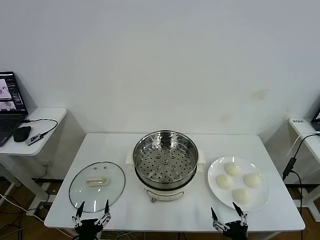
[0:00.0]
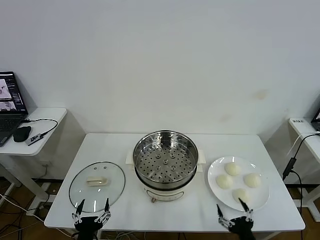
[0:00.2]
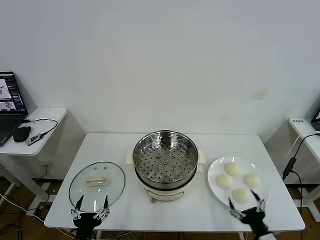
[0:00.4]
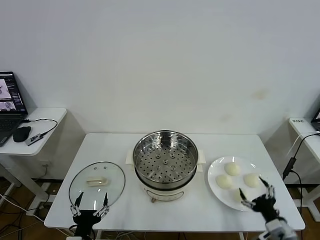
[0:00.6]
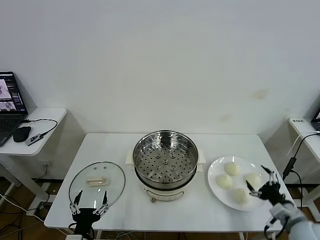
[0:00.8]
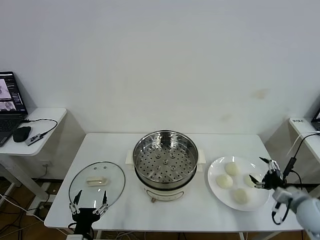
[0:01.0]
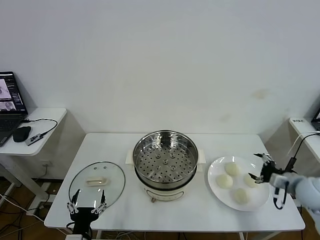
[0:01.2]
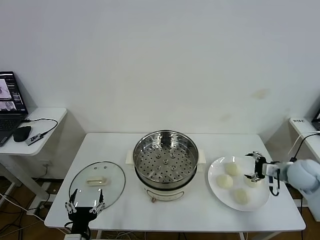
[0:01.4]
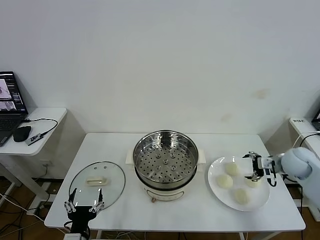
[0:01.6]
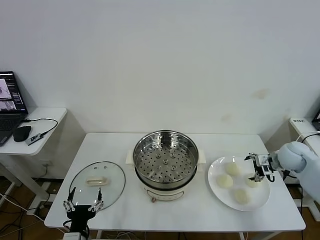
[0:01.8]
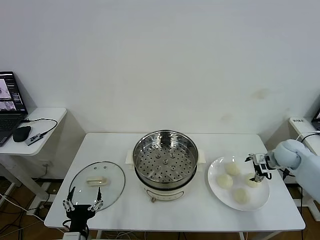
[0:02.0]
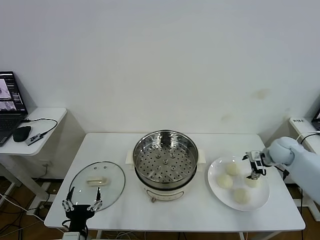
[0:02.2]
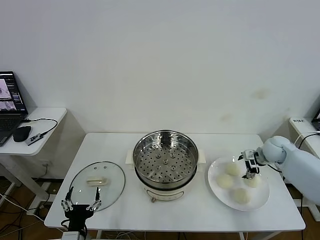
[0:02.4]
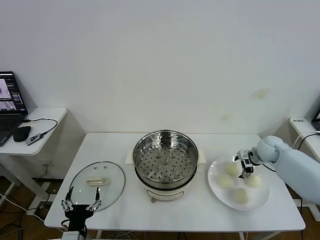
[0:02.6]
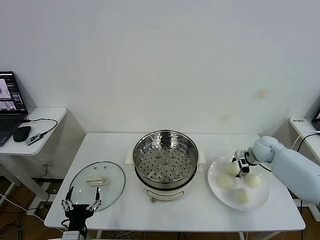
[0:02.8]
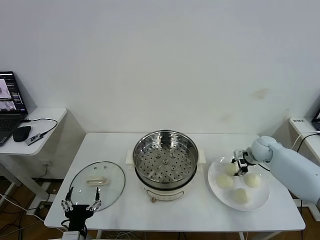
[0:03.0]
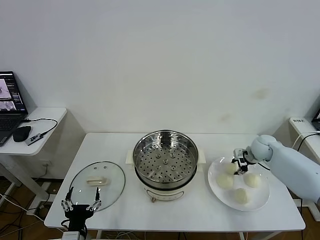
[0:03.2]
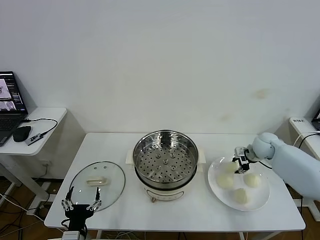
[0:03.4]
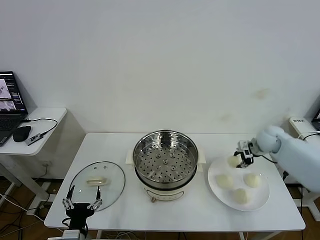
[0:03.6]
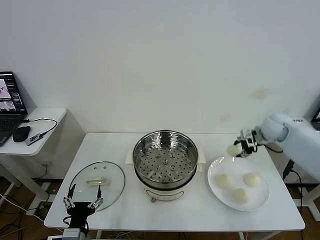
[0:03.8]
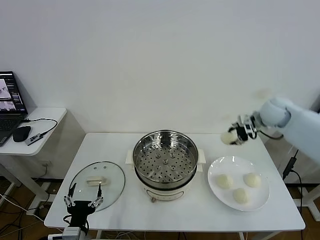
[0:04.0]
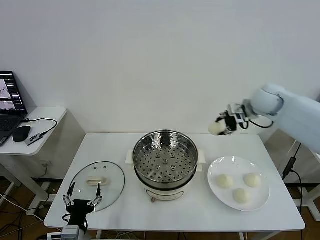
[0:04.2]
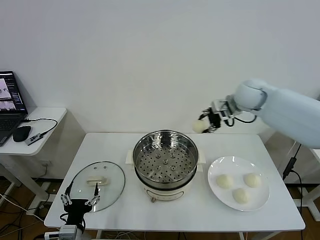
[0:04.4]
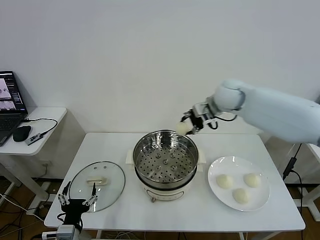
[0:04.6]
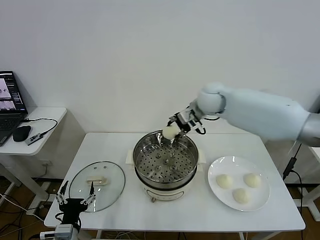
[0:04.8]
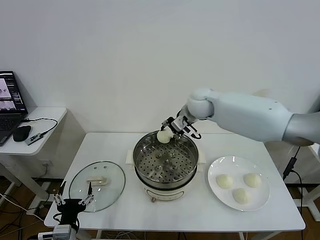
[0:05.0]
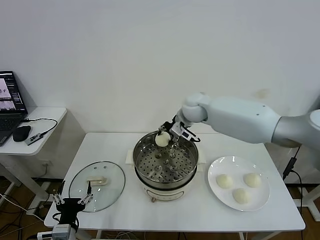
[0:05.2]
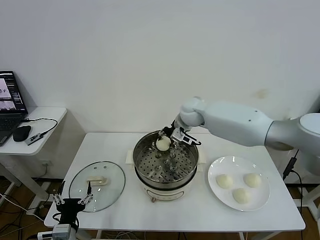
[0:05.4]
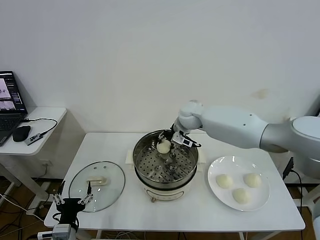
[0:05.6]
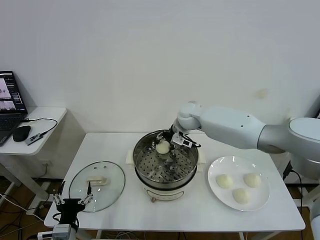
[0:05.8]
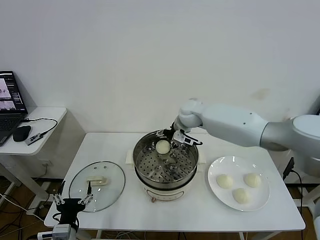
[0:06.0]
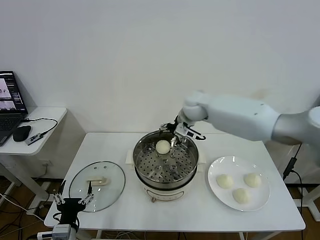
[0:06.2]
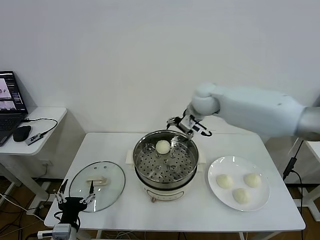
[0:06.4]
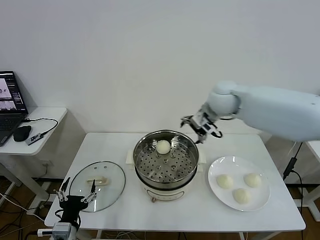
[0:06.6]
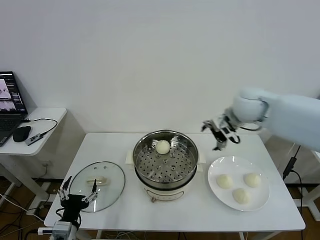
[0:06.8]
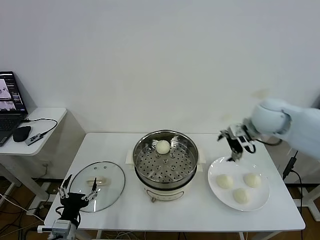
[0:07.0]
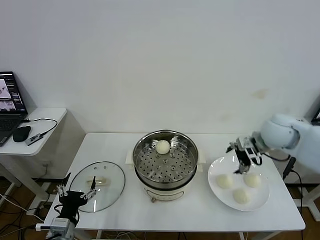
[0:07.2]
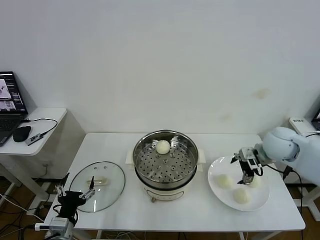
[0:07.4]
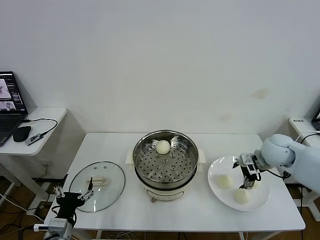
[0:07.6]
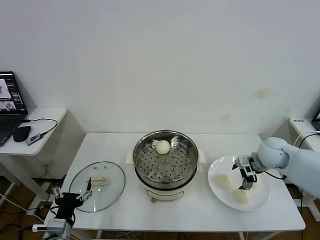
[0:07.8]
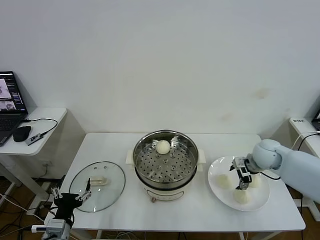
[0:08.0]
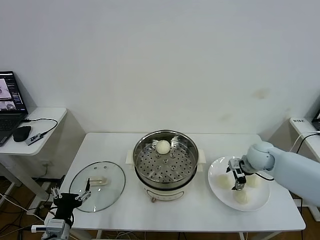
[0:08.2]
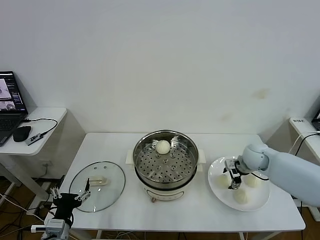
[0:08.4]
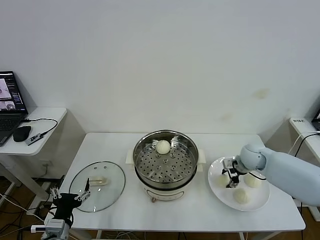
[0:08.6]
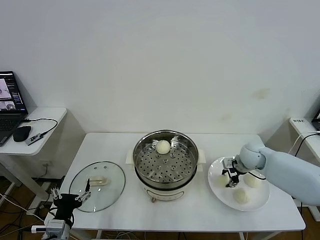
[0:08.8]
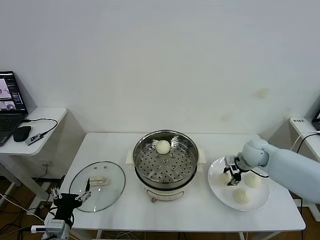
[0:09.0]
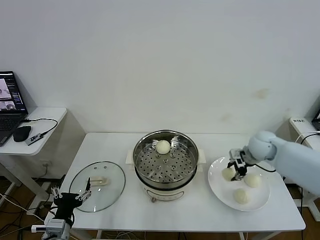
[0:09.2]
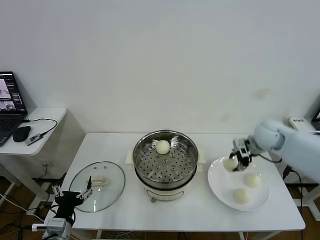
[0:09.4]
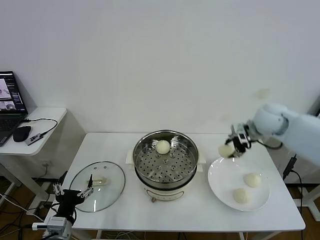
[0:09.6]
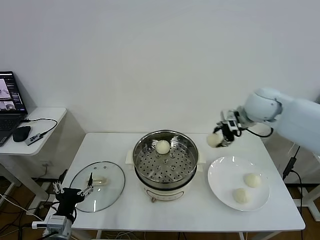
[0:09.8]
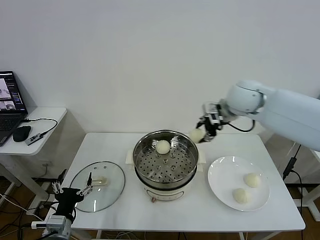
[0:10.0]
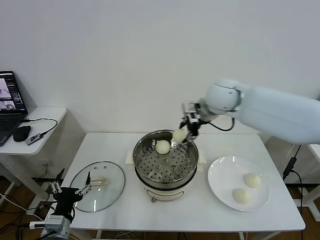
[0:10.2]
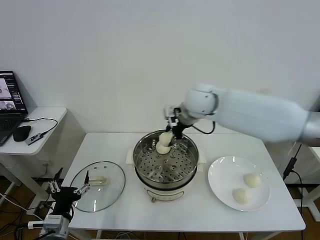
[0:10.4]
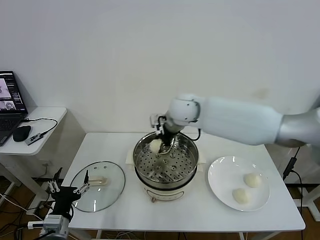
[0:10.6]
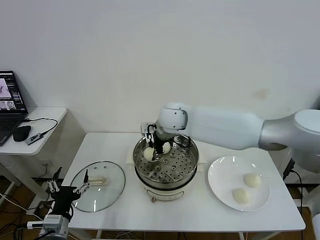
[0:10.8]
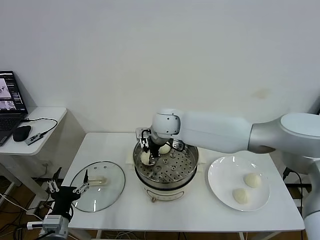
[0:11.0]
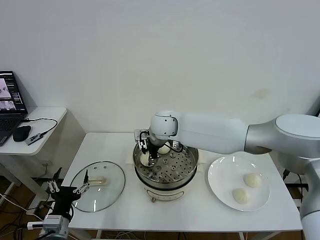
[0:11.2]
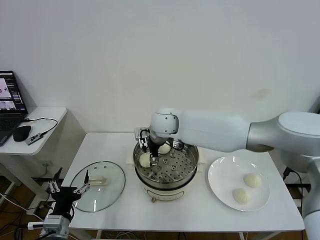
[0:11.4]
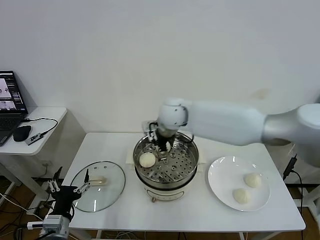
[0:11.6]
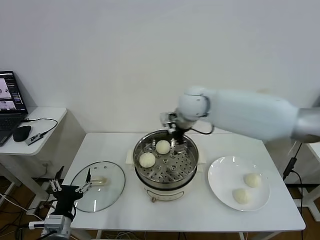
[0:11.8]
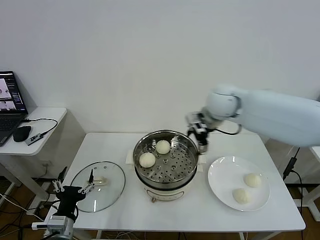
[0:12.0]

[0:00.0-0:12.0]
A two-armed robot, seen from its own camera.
Task of the whole recording: take steamed baozi put them in steamer then cover it.
Step, 0.0 to 3.0 s: Grasp the baozi in the plate with right gripper.
Step, 3.4 to 5.8 s: Place the baozi on the steamer with right gripper.
Step, 6.0 to 8.6 s: Grasp the baozi in the plate with right gripper.
Step, 9.0 to 11.2 s: Place the baozi on the steamer with right gripper.
1.6 to 3.0 s: The right gripper travels forward, downward and to the left by about 10 cm, and closes its fingers.
3.0 to 4.4 s: The right gripper goes roughly 25 cm upward and to the left.
4.4 to 6.0 s: The right gripper is displaced to the left and downward by roughly 20 cm, and opens its fingers.
6.0 to 7.6 s: The right gripper moves to the right and backward, about 30 cm.
7.6 to 9.0 s: The right gripper heads downward, covering some 5 cm, and closes its fingers.
9.0 to 10.4 s: The right gripper is displaced to the left and upward by roughly 30 cm.
10.4 to 12.0 s: The right gripper heads to the right, covering about 10 cm, and opens up.

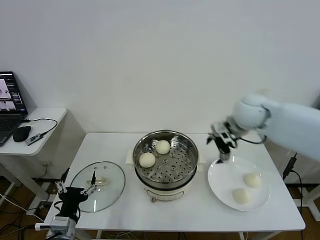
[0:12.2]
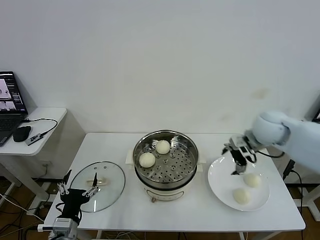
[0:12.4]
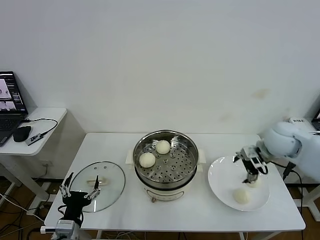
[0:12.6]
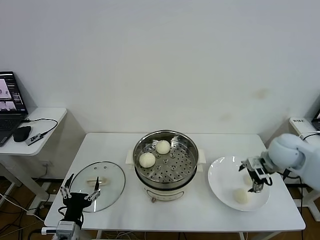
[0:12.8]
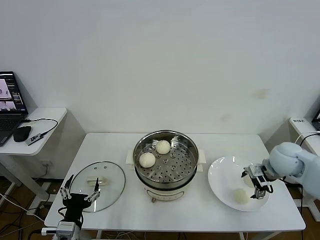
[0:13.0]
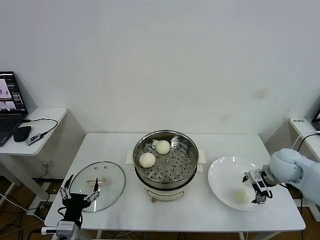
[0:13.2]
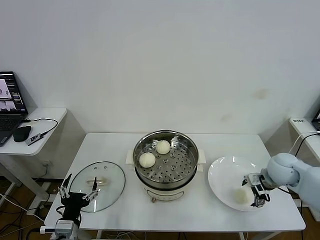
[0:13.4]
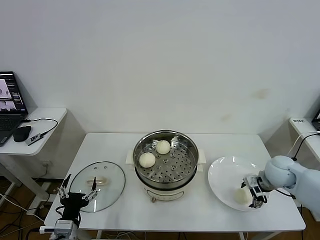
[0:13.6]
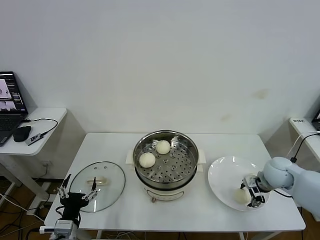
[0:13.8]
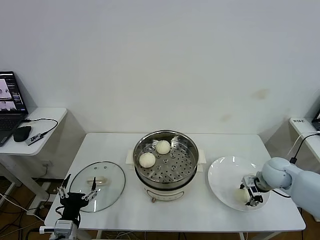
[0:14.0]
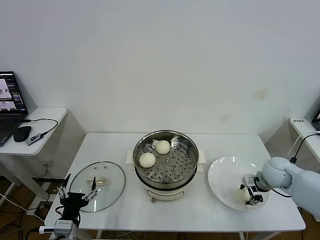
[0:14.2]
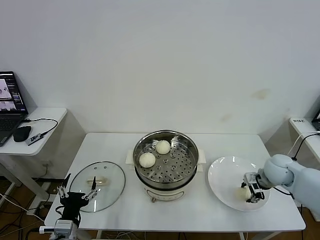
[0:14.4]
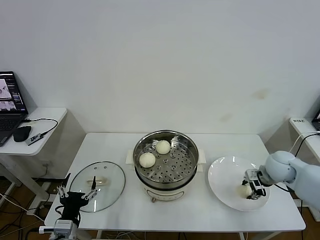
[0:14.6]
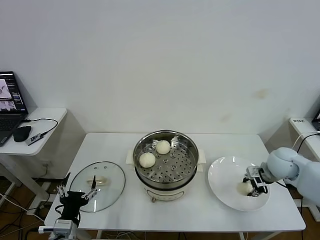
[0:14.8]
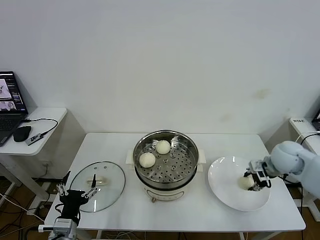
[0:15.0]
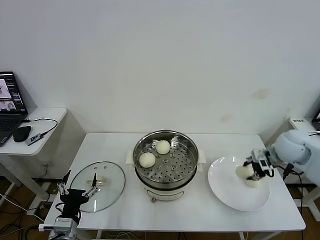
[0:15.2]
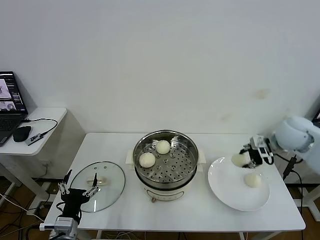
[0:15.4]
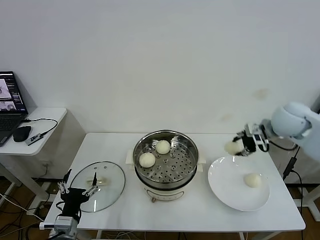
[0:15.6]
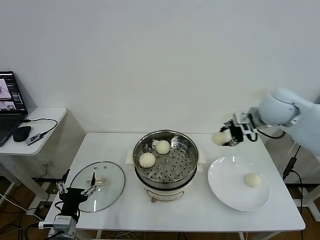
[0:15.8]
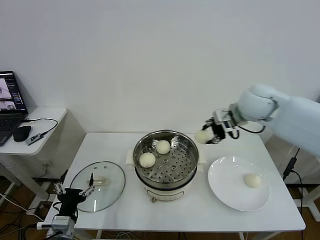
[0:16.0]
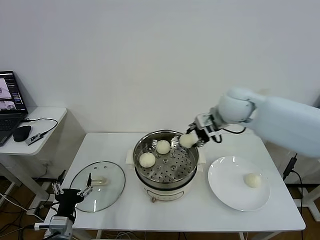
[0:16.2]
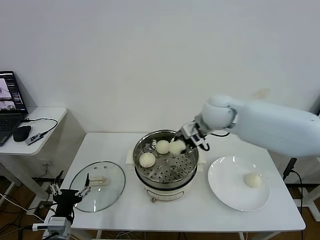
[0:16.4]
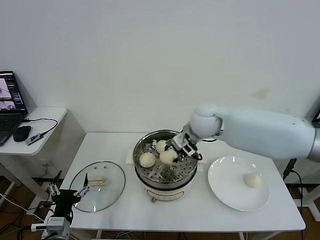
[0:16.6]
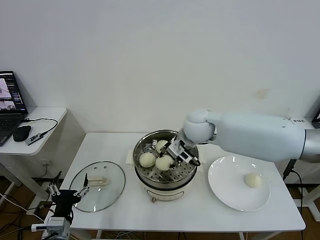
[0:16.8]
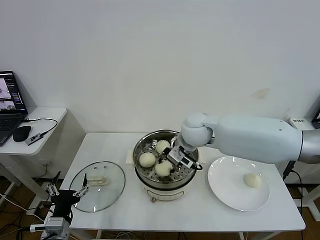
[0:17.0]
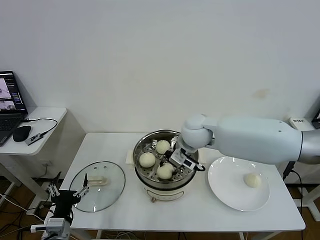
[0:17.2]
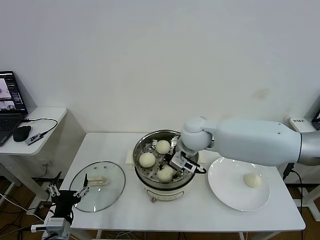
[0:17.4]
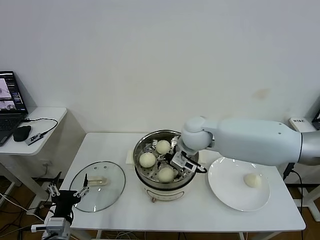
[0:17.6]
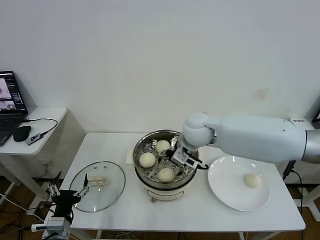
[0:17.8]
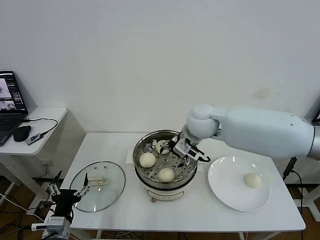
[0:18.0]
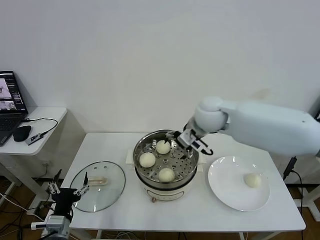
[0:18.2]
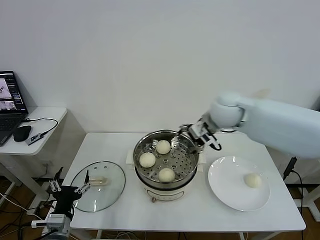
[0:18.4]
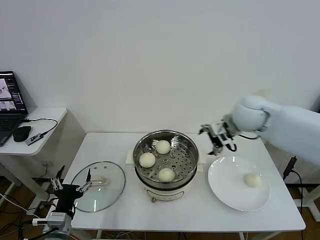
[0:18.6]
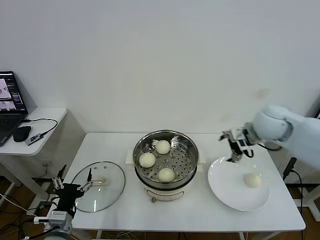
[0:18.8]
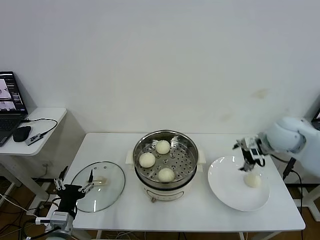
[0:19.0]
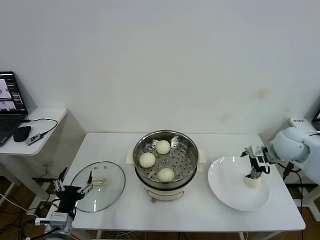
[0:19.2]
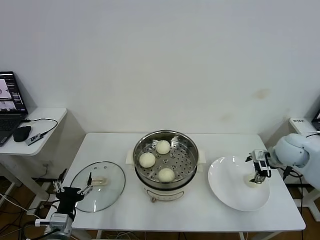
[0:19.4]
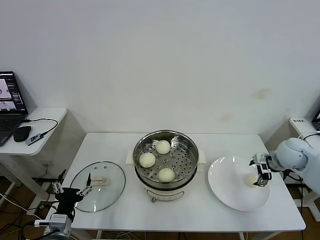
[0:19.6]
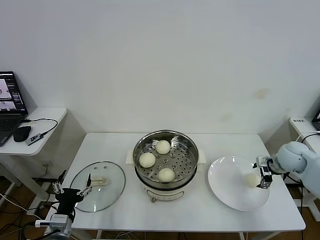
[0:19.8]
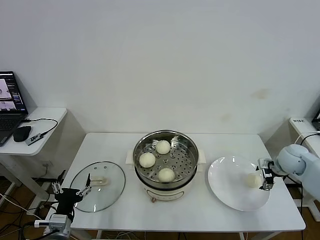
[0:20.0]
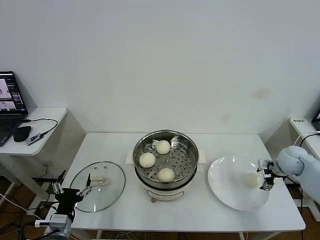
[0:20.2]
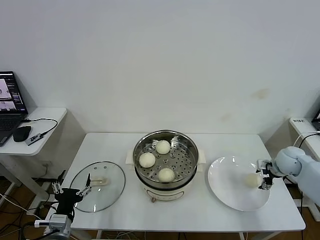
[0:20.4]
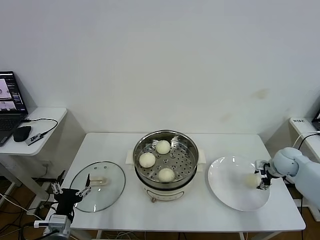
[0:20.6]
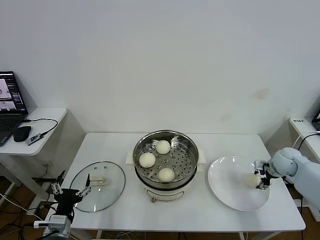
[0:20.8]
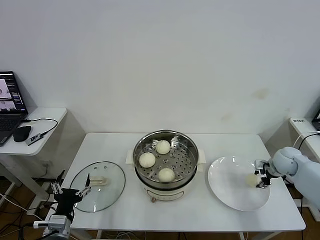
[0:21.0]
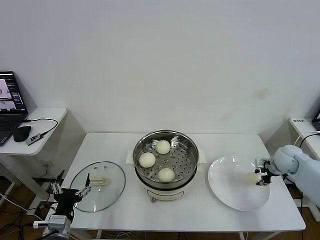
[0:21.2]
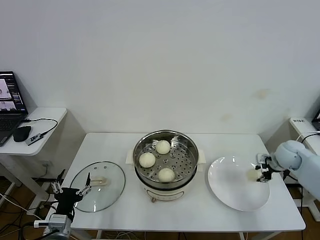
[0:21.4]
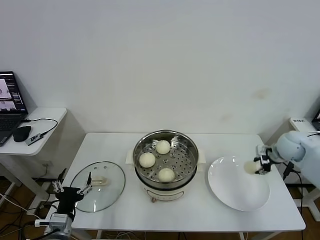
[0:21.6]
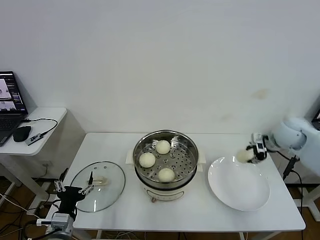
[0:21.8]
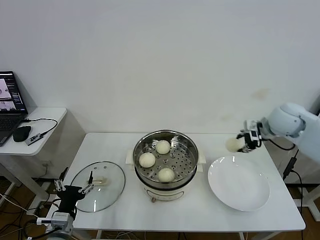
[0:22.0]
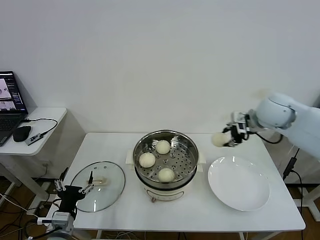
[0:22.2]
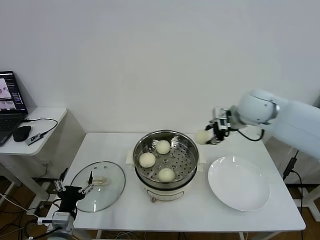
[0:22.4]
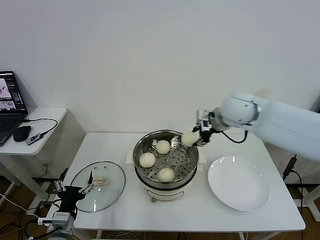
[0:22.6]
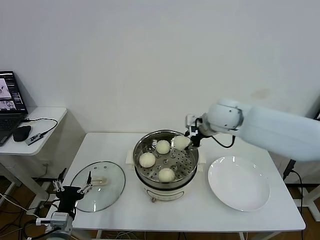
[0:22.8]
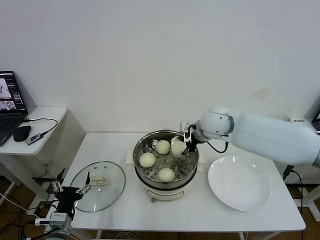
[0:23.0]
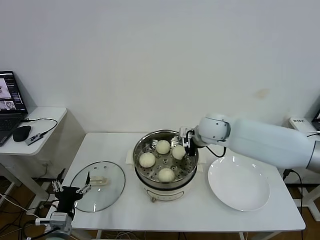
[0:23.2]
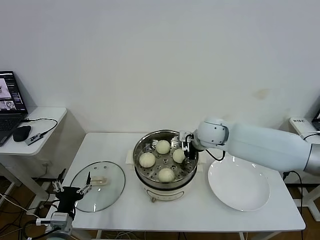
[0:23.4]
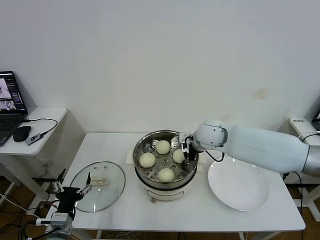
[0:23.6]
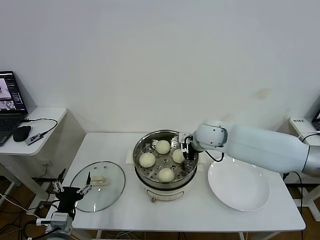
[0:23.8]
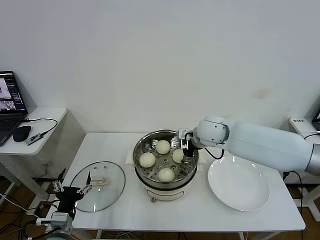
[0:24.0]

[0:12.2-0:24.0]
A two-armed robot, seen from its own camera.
Task of the whole recording: take steamed baozi put them in steamer then cover it.
Step, 12.2 to 14.2 s: Grasp the baozi in the plate with right gripper.
Step, 14.4 to 17.4 s: Place the baozi on the steamer with right gripper.
Step, 17.8 to 20.8 s: Grasp the baozi in the plate with right gripper.
Step, 21.0 to 23.8 s: Place the baozi on the steamer with right gripper.
12.2 to 13.6 s: The right gripper travels downward, to the right and backward by about 25 cm.
13.6 to 15.2 s: The right gripper moves upward, approximately 10 cm, and closes up.
15.2 to 16.6 s: The right gripper is displaced to the left by about 25 cm.
16.6 to 18.2 s: The right gripper opens.
18.2 to 19.6 s: The right gripper is displaced to the right and downward by some 30 cm.
19.6 to 21.0 s: The right gripper is displaced downward by some 5 cm, and closes its fingers.
21.0 to 22.6 s: The right gripper moves to the left and upward, roughly 35 cm.
22.6 to 24.0 s: The right gripper heads downward and to the left, covering about 10 cm, and opens its fingers.
